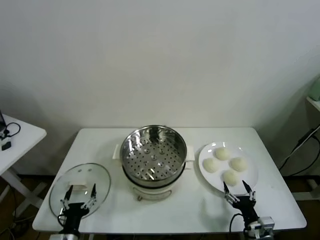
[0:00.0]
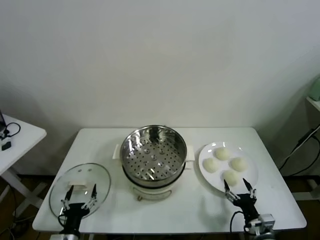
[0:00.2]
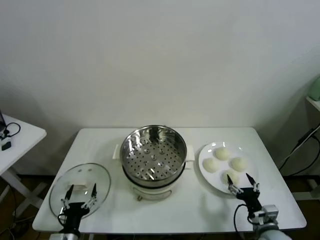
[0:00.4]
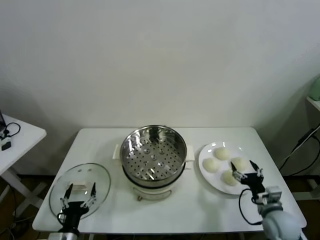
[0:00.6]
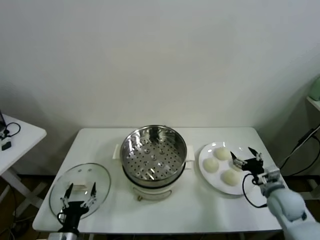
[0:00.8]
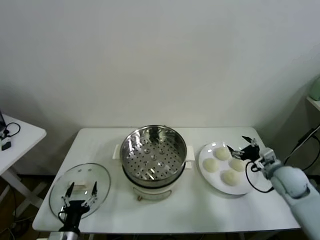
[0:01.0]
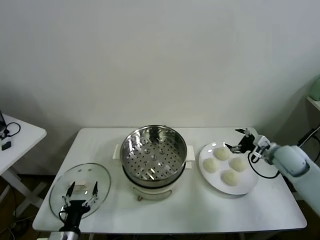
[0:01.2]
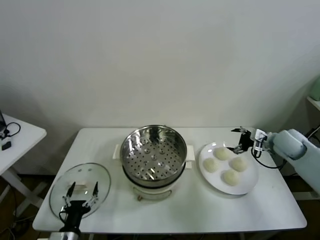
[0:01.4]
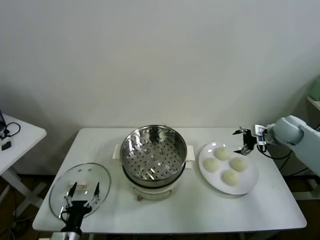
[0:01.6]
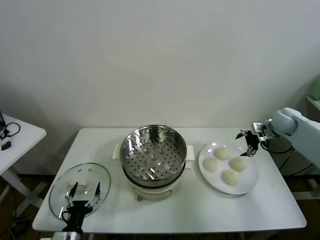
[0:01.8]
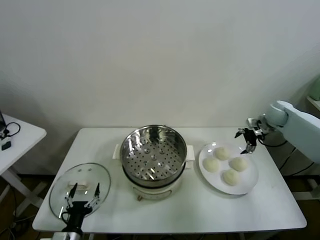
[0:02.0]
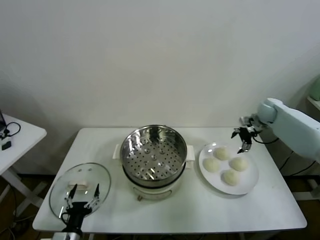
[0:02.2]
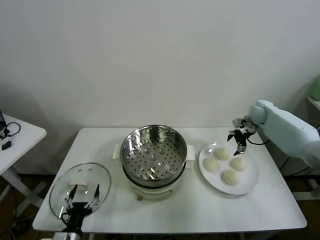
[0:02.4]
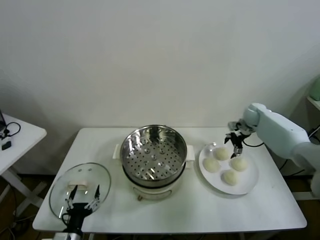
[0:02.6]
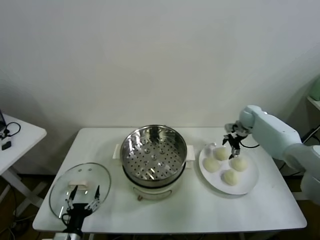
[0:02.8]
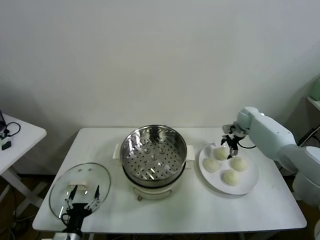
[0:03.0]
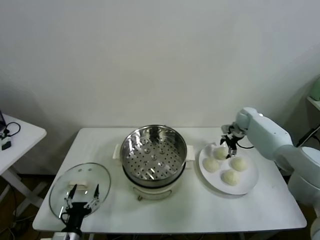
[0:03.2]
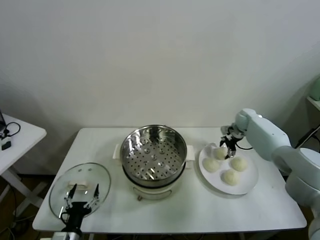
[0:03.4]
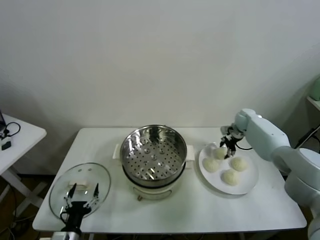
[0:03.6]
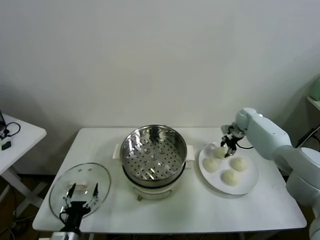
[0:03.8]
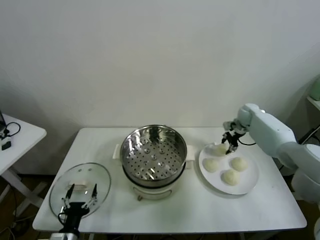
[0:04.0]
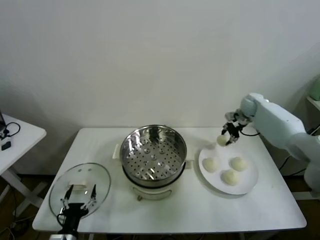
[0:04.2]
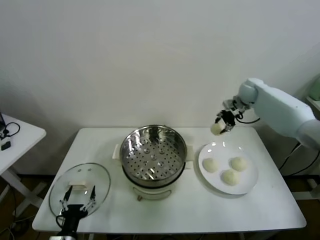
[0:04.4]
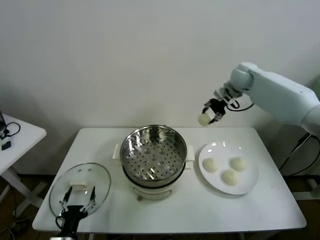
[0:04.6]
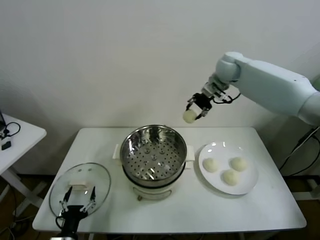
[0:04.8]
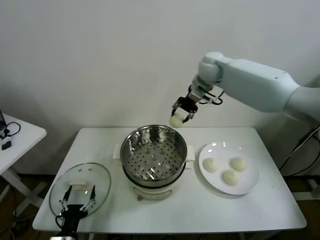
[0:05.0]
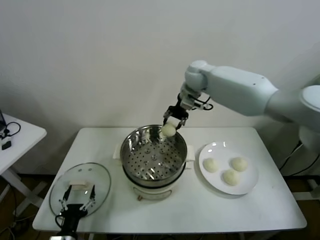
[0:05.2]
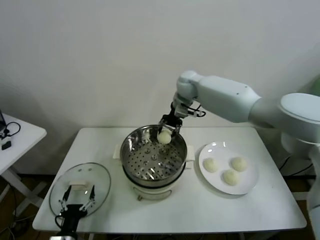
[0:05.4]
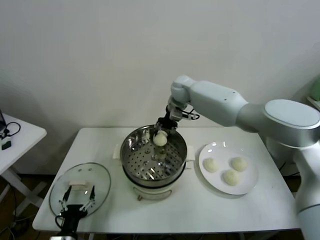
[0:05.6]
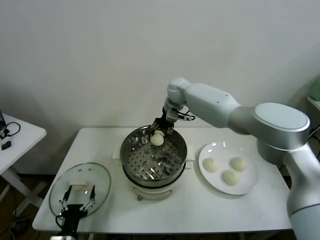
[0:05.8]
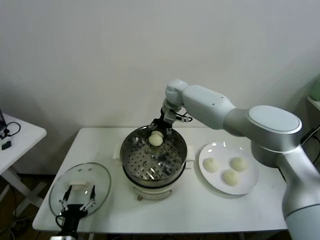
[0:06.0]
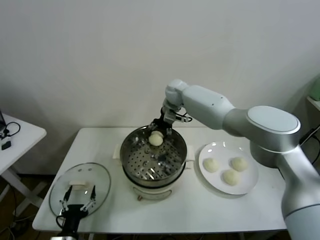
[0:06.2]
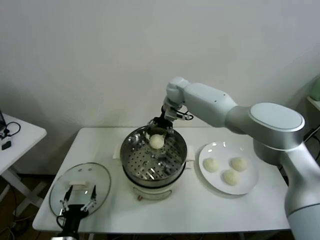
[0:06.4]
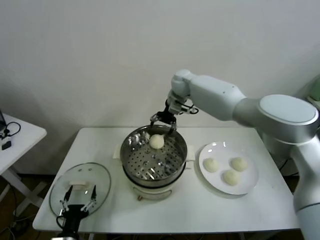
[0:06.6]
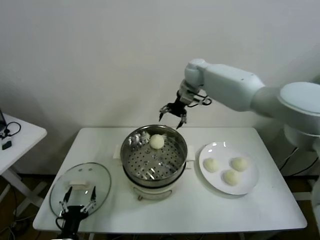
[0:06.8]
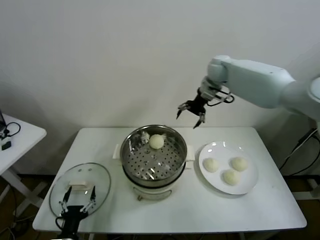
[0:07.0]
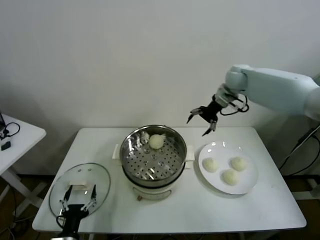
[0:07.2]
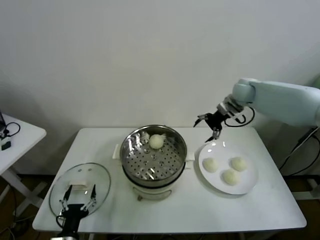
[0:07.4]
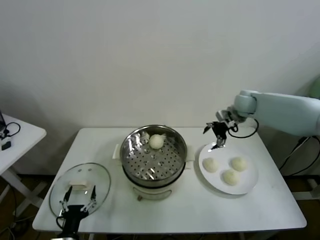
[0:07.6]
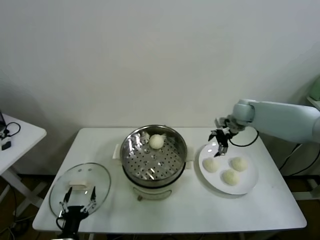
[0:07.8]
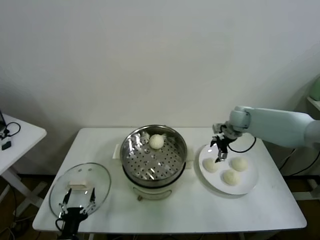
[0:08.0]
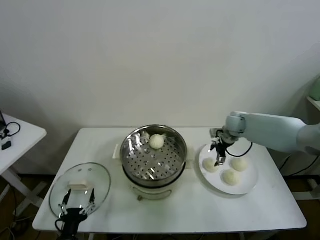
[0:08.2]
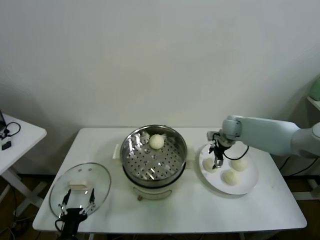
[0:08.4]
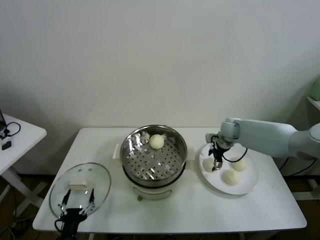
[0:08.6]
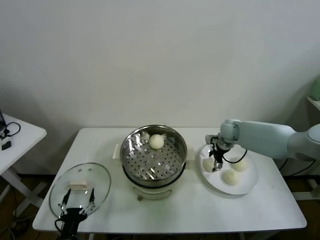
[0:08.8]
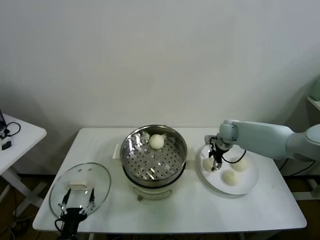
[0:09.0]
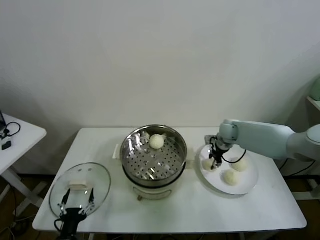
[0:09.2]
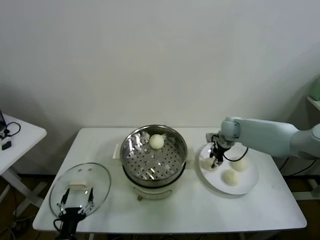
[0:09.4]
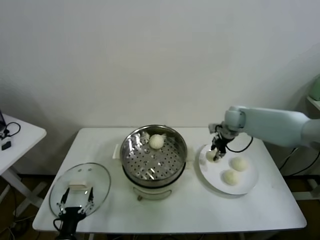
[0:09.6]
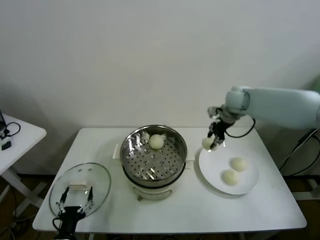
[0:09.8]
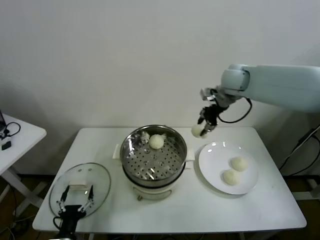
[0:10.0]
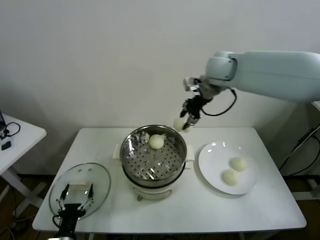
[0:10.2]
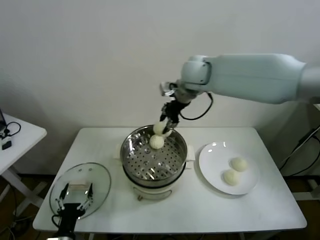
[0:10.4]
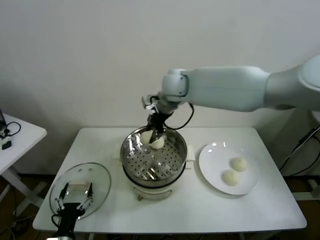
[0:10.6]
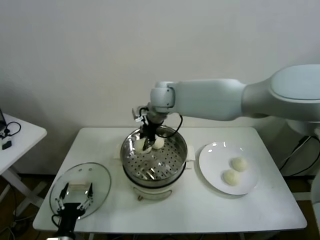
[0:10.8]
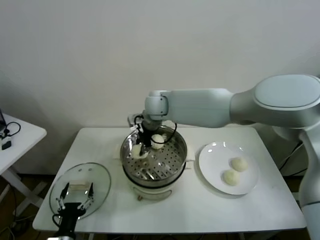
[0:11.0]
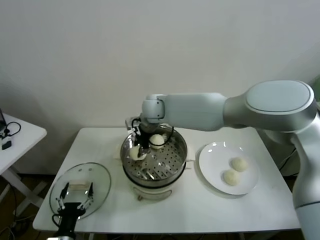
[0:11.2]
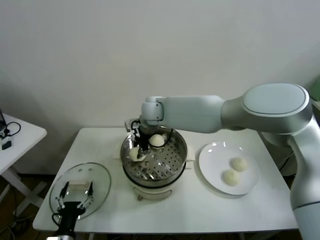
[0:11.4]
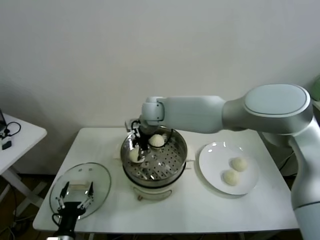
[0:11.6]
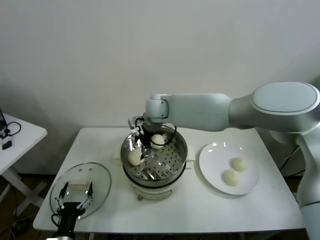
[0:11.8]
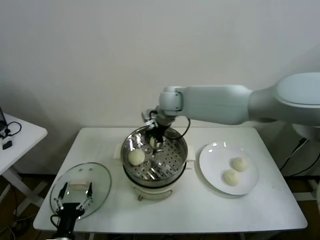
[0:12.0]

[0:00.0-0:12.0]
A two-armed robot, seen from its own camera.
Task of the whole recording: take steamed baozi put them in steamer.
Step, 0:00.0 to 0:03.4: Grasp the baozi in the plate with right gripper.
Step, 0:03.8 to 0:06.2: Place the baozi on the steamer with right gripper.
Step, 0:06.4 to 0:09.0: Grasp the baozi in the plate with right gripper.
Step, 0:09.2 to 0:11.6: Place the baozi on the steamer with right gripper.
0:01.6 to 0:03.0: The right gripper travels forward, downward and to the left by approximately 15 cm.
0:03.0 to 0:04.4: The right gripper travels upward by about 20 cm, and closes up.
0:04.4 to 0:06.0: The right gripper is displaced to the left by approximately 25 cm, and opens its fingers.
0:06.0 to 0:07.6: The right gripper travels to the right by some 25 cm, and opens.
0:07.6 to 0:09.0: The right gripper travels downward by some 10 cm, and closes.
0:09.0 to 0:10.4: The right gripper moves upward and to the left, roughly 35 cm, and closes up.
0:10.4 to 0:12.0: The right gripper shifts roughly 5 cm downward, and opens.

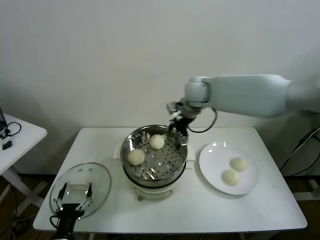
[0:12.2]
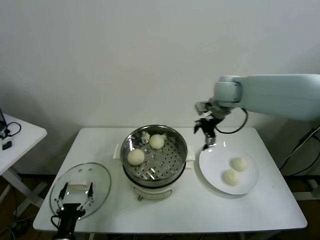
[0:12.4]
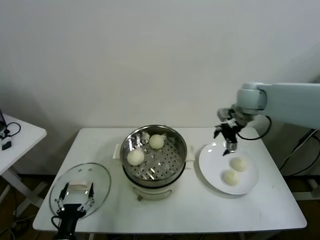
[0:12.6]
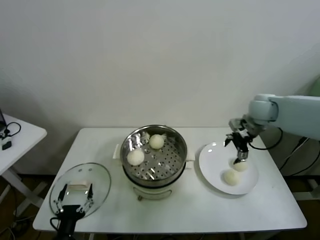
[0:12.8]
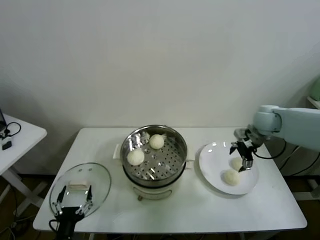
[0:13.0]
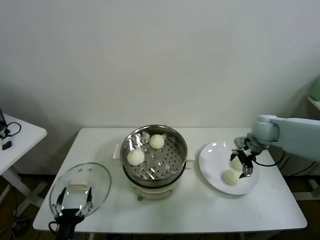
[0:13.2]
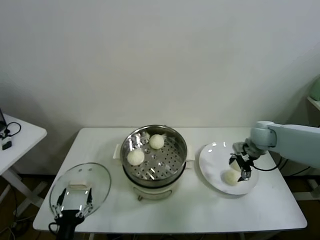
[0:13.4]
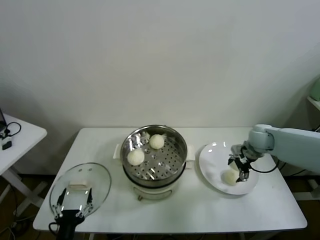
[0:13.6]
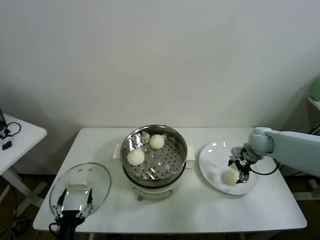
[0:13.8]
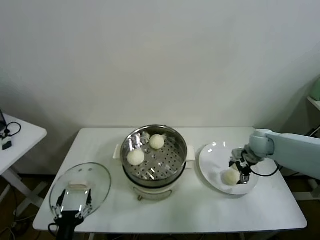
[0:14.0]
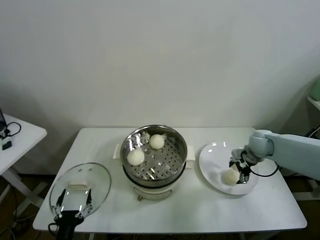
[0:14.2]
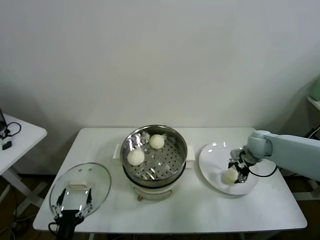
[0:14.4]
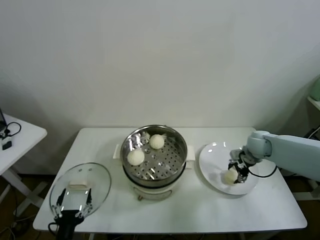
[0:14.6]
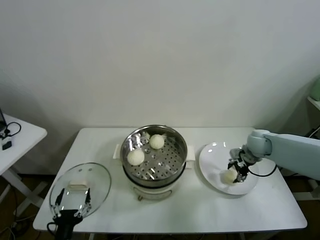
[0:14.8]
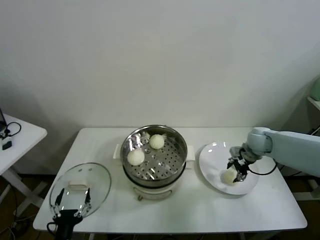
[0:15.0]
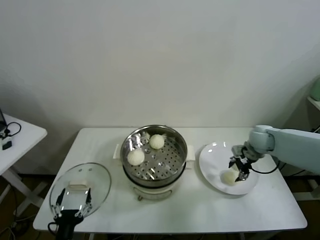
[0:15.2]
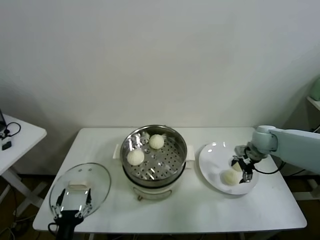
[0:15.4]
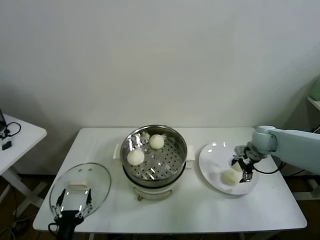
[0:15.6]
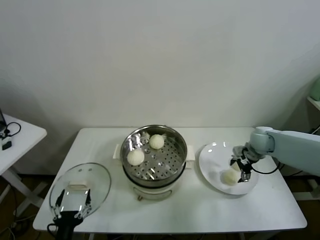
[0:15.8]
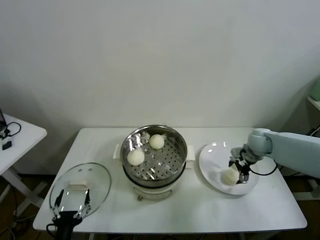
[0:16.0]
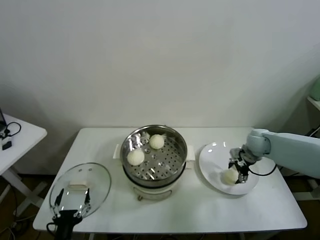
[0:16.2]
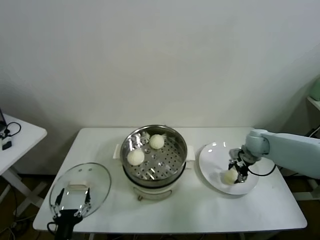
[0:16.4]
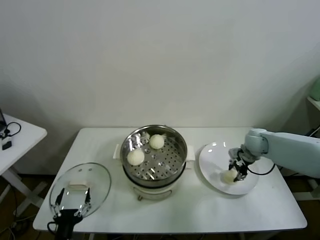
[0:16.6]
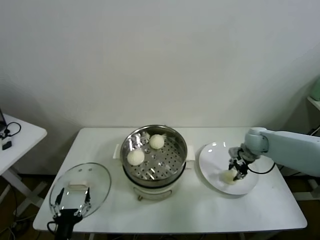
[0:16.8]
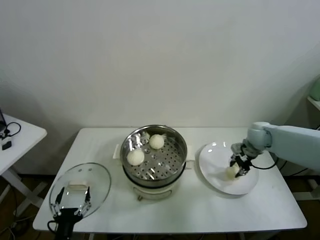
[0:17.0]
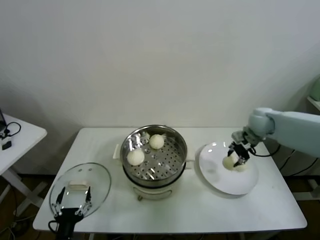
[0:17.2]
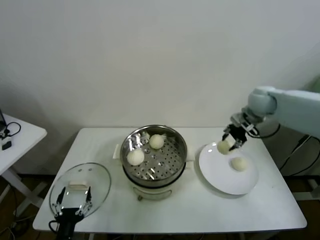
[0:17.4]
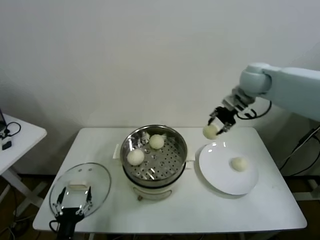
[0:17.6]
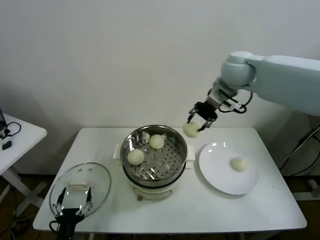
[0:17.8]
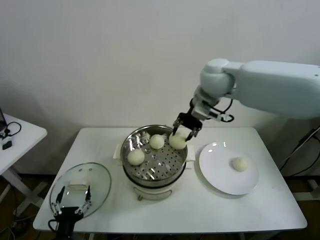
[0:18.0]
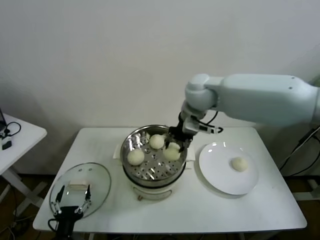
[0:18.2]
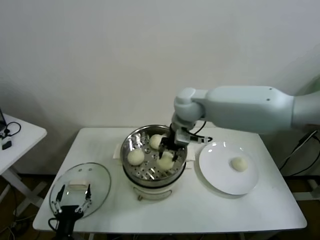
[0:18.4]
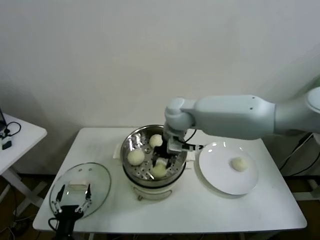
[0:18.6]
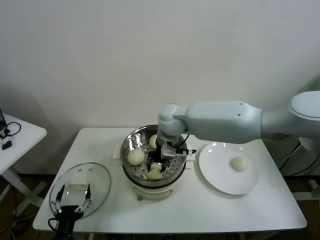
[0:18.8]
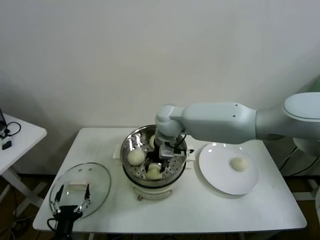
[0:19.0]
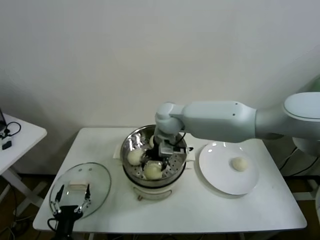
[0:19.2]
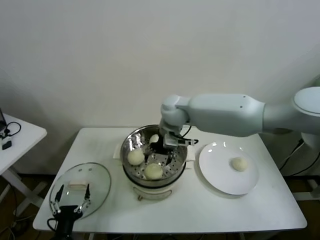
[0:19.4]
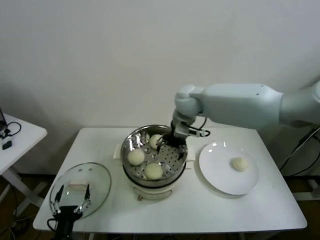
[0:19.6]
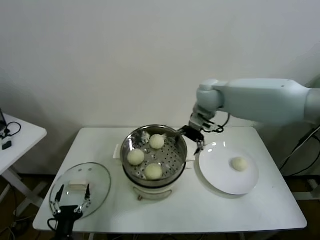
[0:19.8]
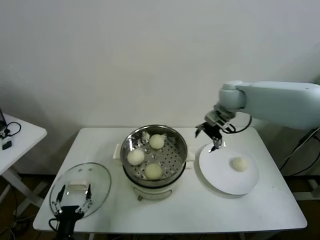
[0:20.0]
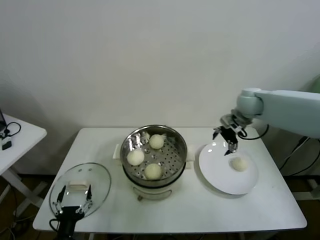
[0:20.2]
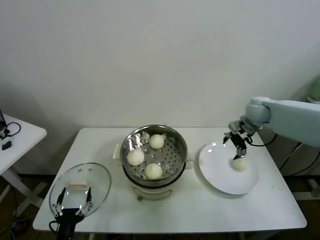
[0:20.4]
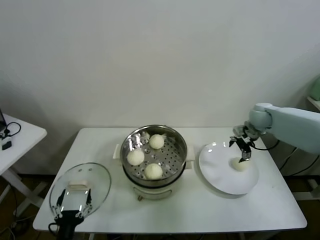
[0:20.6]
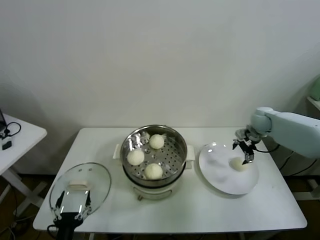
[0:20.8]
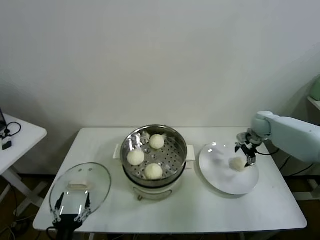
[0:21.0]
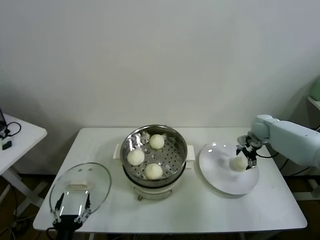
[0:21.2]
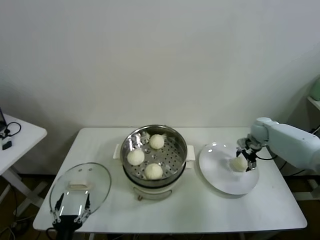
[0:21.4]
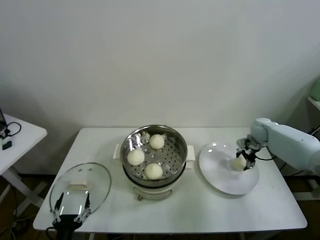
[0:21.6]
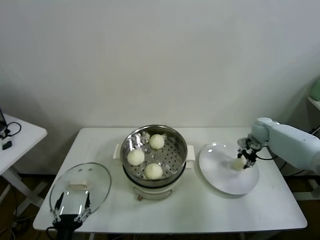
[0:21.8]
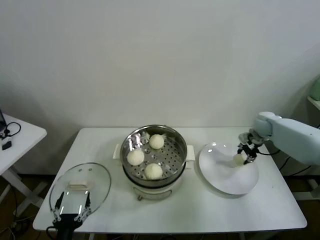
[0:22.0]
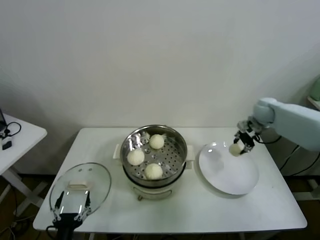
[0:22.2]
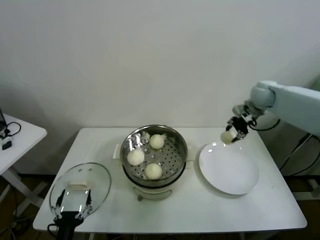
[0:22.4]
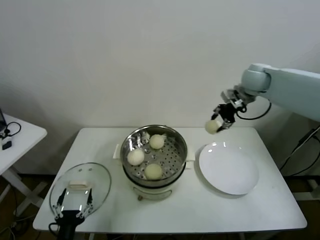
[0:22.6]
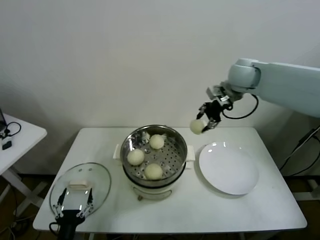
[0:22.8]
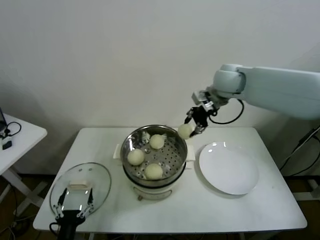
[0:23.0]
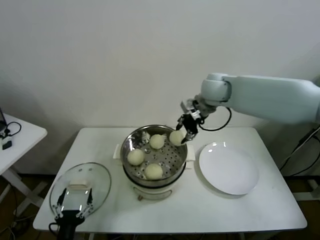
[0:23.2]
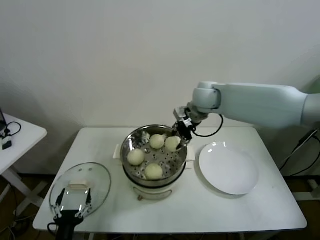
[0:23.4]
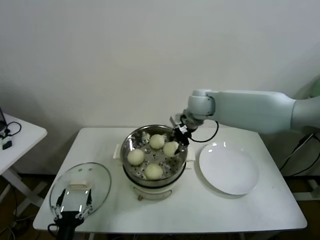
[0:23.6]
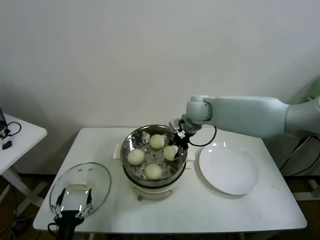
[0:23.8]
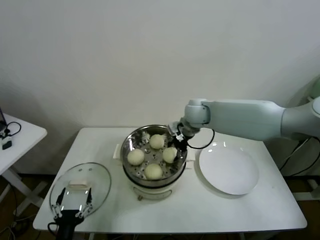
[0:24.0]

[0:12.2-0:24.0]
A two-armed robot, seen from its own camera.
Task of the whole recording: take steamed baozi put them in steamer.
Step, 0:12.2 to 0:16.4: Grasp the baozi in the plate with right gripper.
Step, 0:16.6 to 0:19.2: Place the baozi on the steamer with right gripper.
Step, 0:19.4 to 0:21.6: Grasp the baozi in the plate with right gripper.
0:12.2 to 0:13.6: The right gripper travels to the right and downward by roughly 25 cm.
0:15.2 to 0:16.6: The right gripper closes its fingers.
0:16.6 to 0:18.2: The right gripper heads to the left and upward, covering about 35 cm.
0:18.2 to 0:19.6: The right gripper opens.
0:19.6 to 0:21.0: The right gripper is displaced to the right and downward by some 35 cm.
0:21.0 to 0:22.6: The right gripper is displaced upward and to the left by roughly 20 cm, and closes.
0:22.6 to 0:24.0: The right gripper shifts roughly 20 cm to the left and downward.
